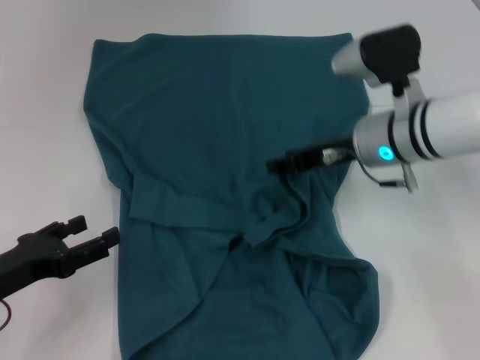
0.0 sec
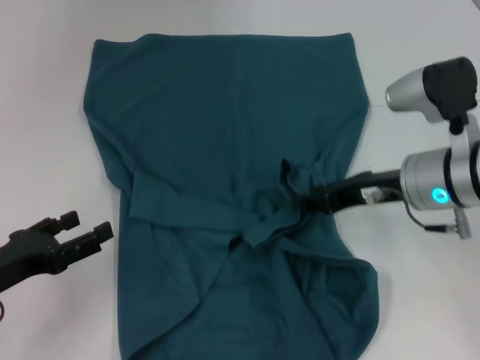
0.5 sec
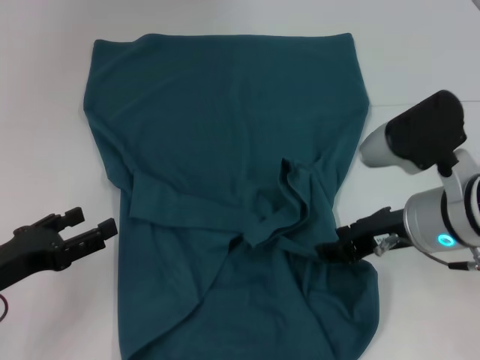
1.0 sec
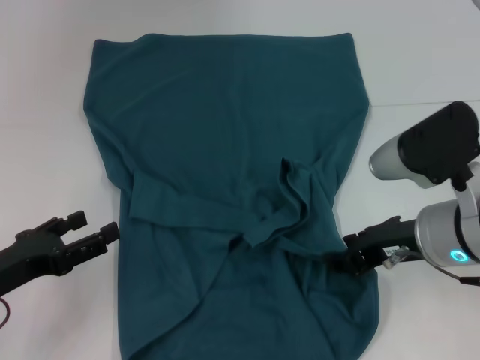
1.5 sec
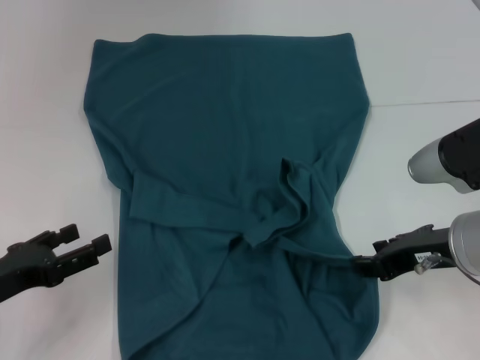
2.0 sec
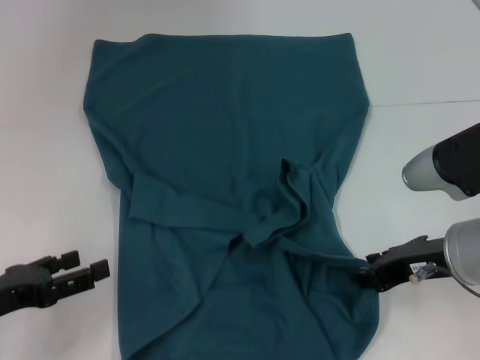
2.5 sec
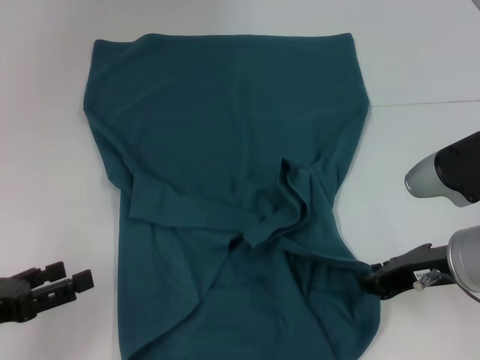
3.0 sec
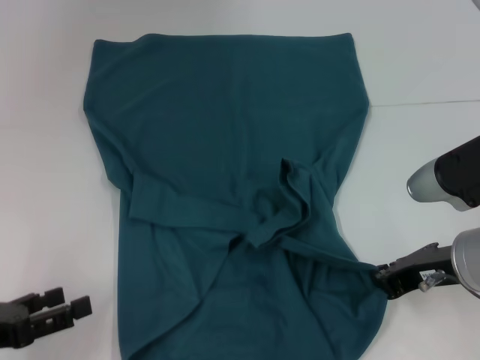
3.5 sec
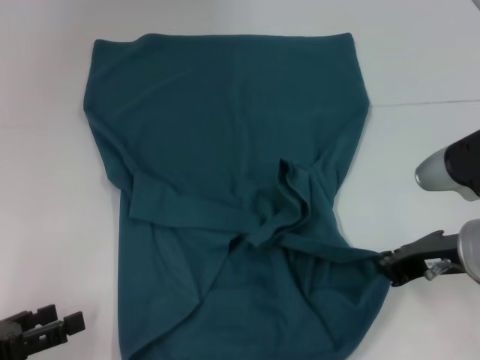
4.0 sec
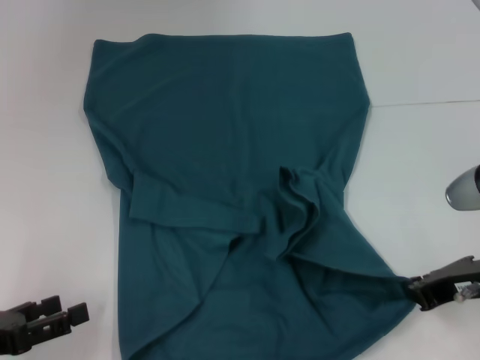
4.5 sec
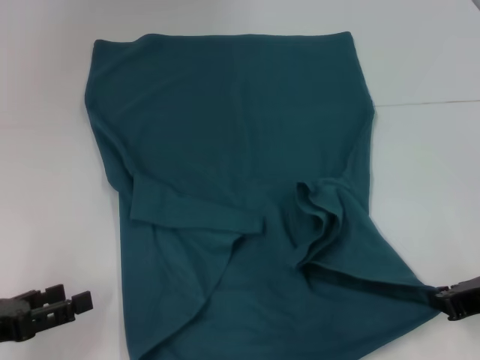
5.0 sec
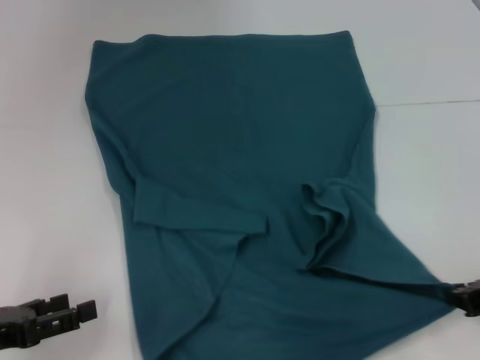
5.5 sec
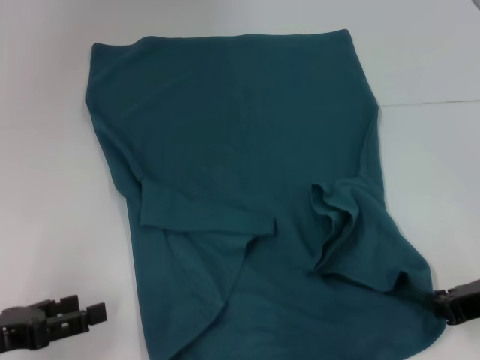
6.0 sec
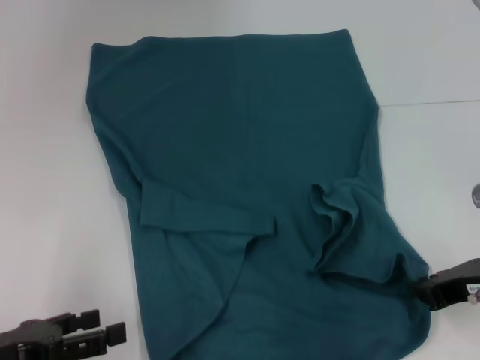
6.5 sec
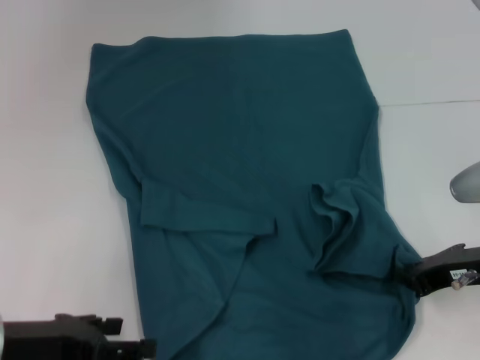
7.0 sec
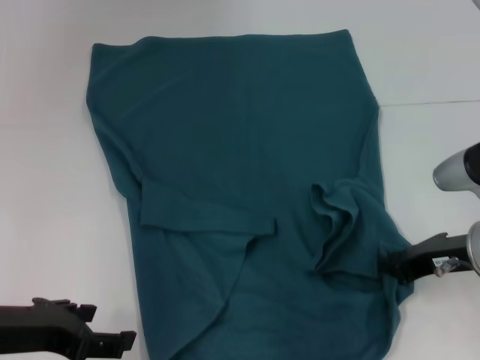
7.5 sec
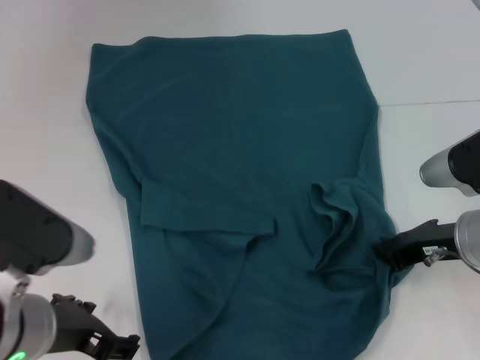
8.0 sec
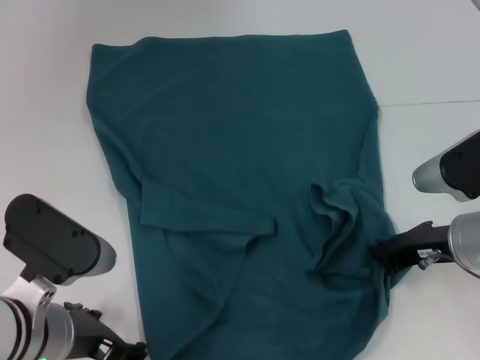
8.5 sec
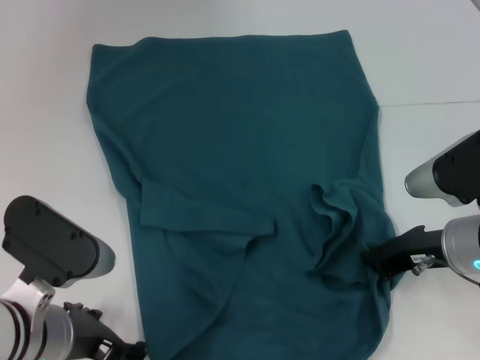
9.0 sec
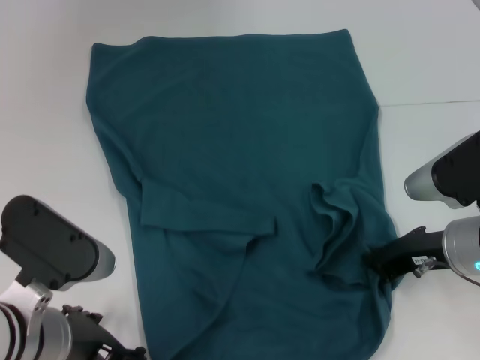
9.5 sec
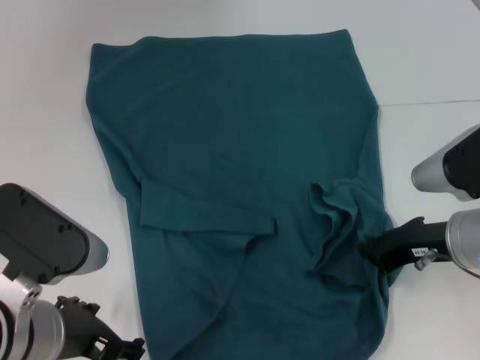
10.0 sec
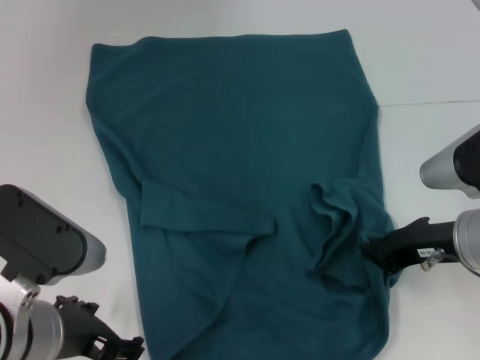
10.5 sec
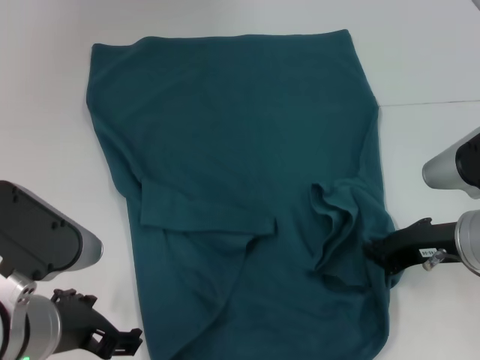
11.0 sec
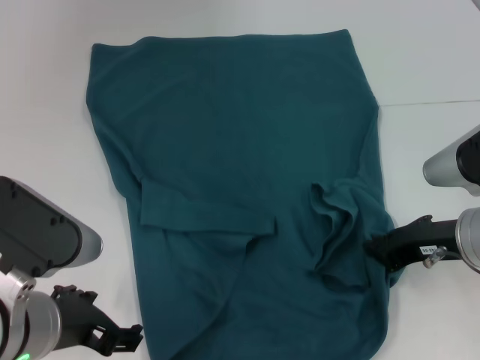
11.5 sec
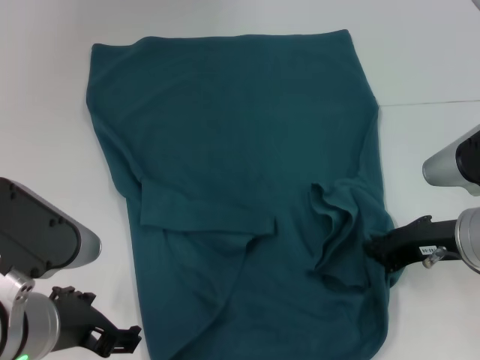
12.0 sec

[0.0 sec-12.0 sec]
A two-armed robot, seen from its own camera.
Step, 0.5 sec to 4.0 sec: Grab the bottom right corner with your right hand.
0.0 sec to 2.0 sec: The right gripper is displaced backward by some 15 cm.
2.0 sec to 4.0 sec: The right gripper closes its fingers, while the left gripper goes approximately 5 cm backward.
4.0 sec to 6.0 sec: The right gripper heads to the right, covering roughly 5 cm.
6.0 sec to 8.0 sec: The right gripper is displaced forward by roughly 5 cm. Meanwhile the left gripper moves to the right and upward, about 15 cm.
8.0 sec to 10.0 sec: There are only small adjustments of the grippers.
10.0 sec to 12.0 sec: Neither gripper changes place.

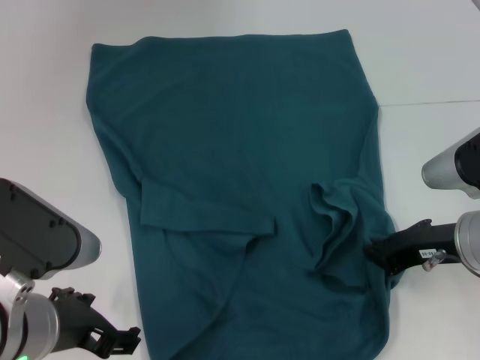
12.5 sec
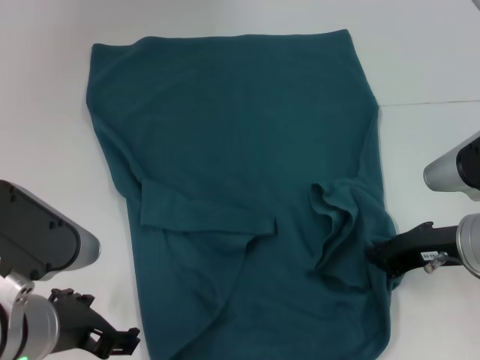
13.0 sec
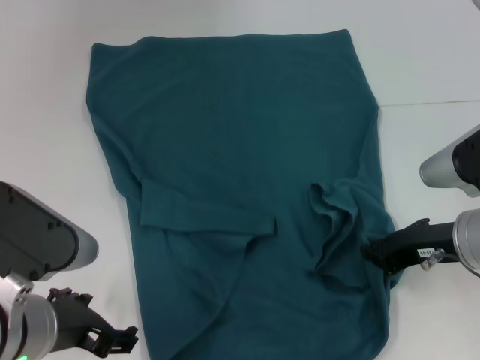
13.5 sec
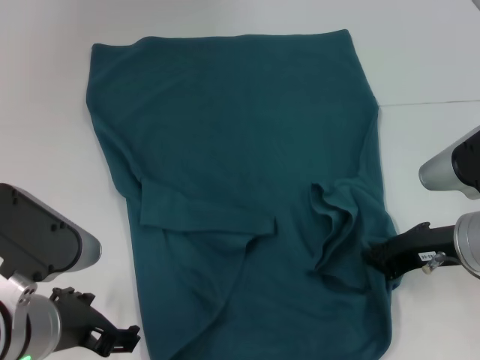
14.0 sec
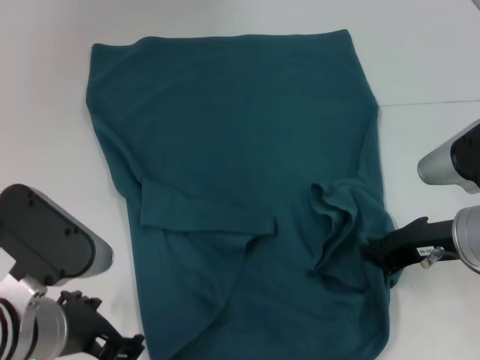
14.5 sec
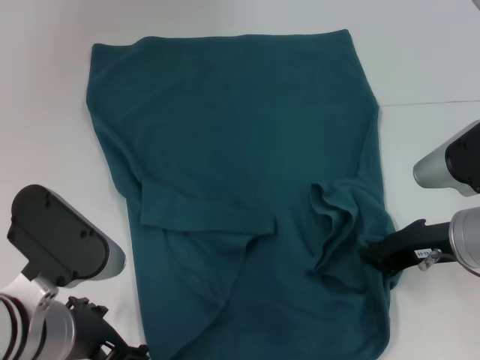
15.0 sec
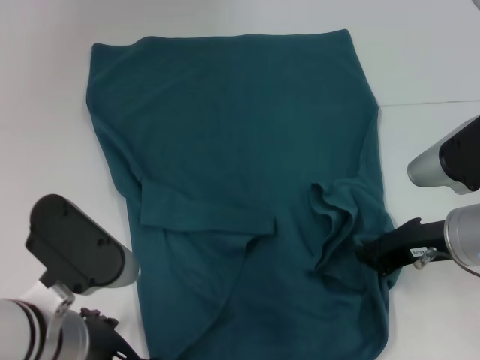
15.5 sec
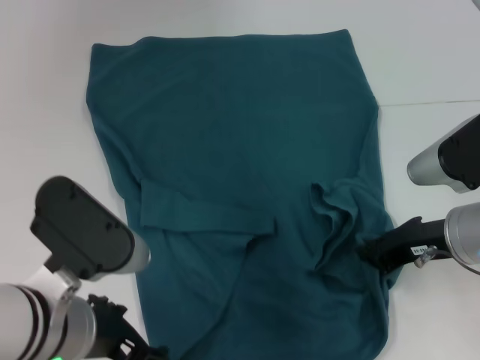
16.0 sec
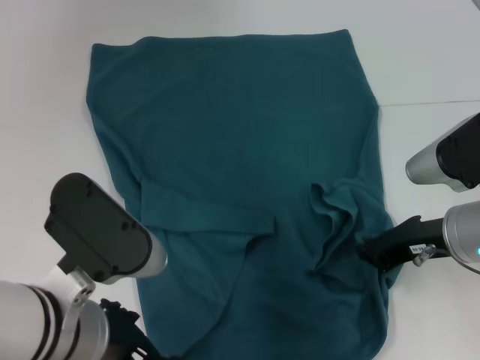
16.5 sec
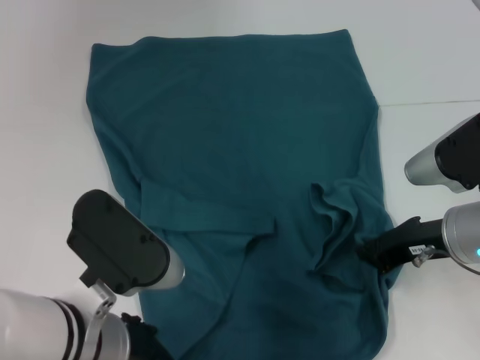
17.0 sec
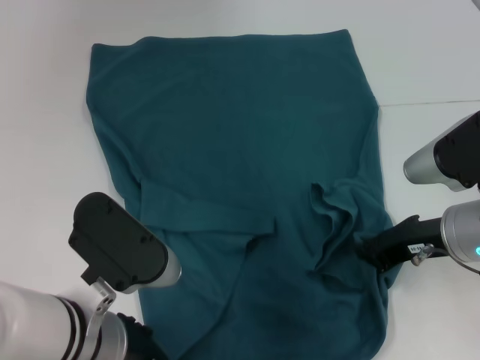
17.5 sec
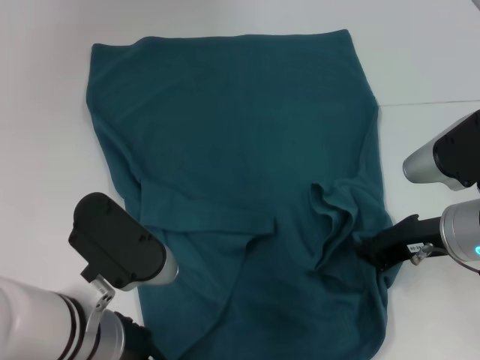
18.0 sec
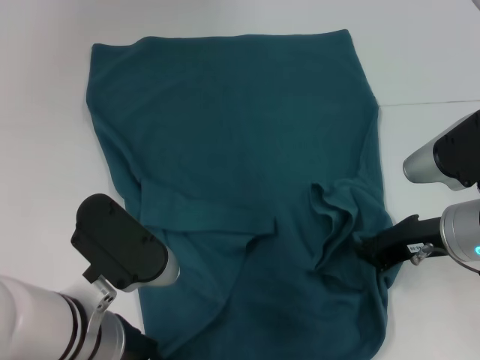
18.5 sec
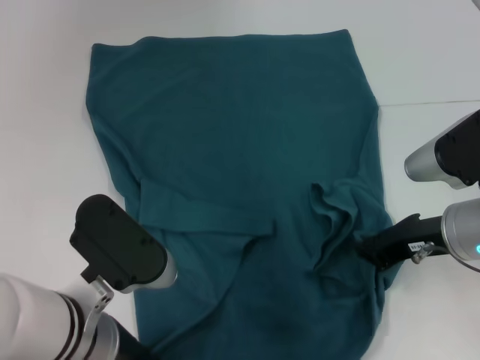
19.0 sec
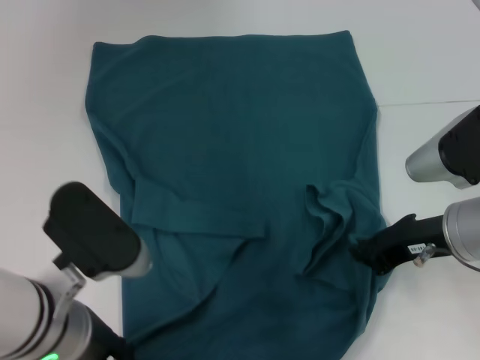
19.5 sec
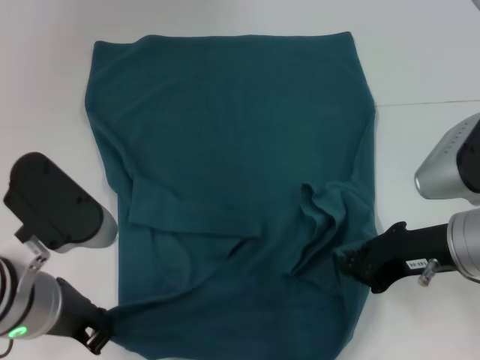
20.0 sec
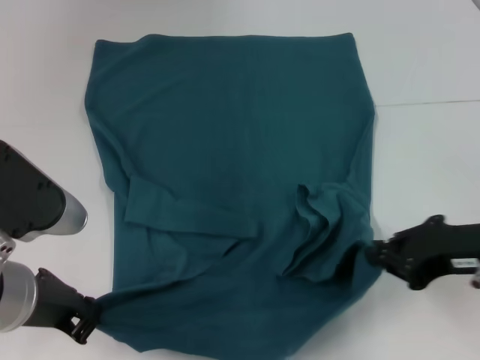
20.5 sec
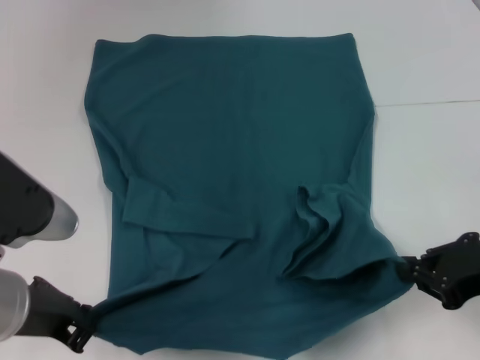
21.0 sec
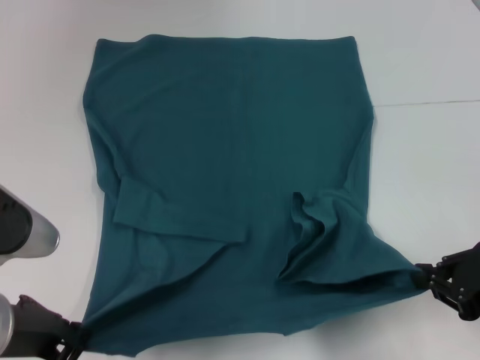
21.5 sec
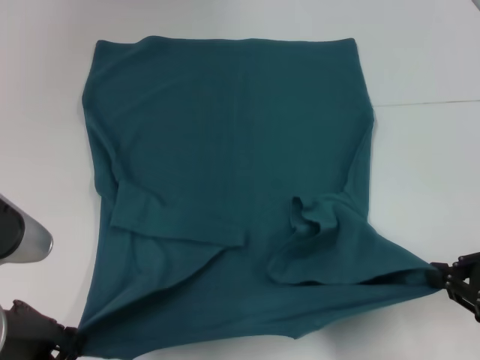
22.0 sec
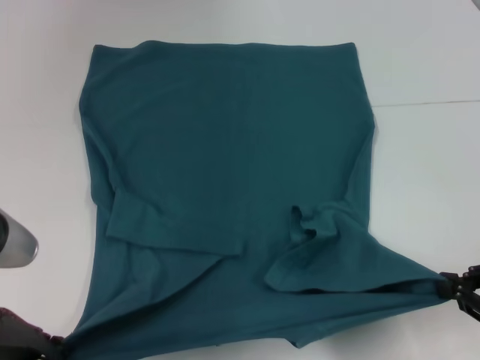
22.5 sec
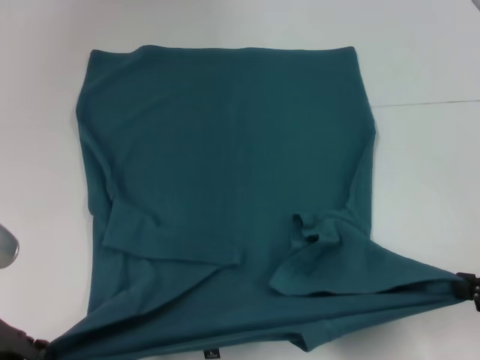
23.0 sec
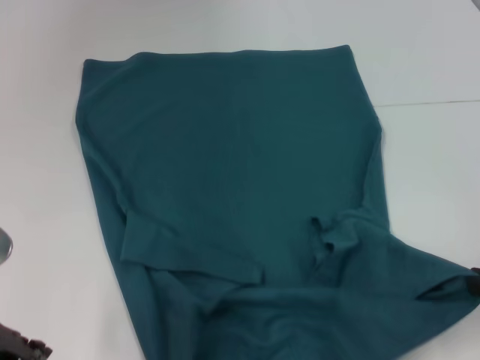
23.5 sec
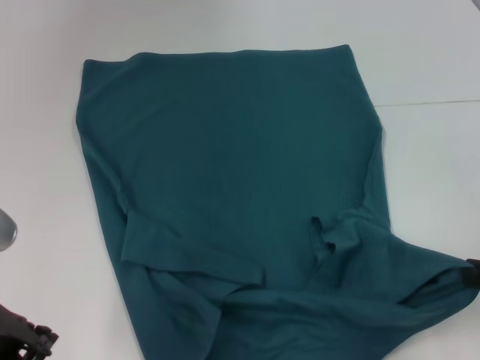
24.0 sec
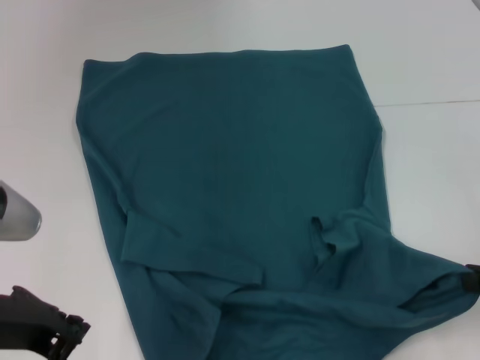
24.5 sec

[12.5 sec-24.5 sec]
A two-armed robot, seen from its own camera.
12.5 sec to 14.5 sec: Both grippers stay about where they are.
14.5 sec to 16.5 sec: The grippers move only a little.
16.5 sec to 18.5 sec: The left gripper closes its fingers.
18.5 sec to 20.5 sec: The left gripper is displaced to the left by some 5 cm, and closes up; the right gripper moves backward, roughly 5 cm.
20.5 sec to 22.5 sec: The right gripper is displaced to the right and backward by roughly 10 cm.
22.5 sec to 24.5 sec: The grippers move only a little.

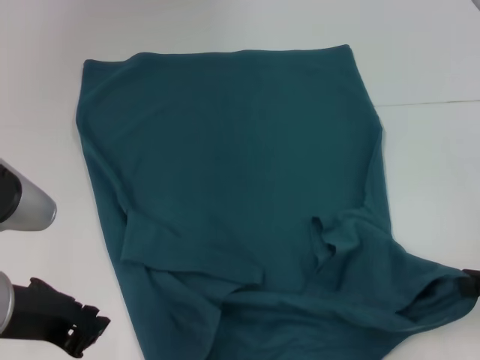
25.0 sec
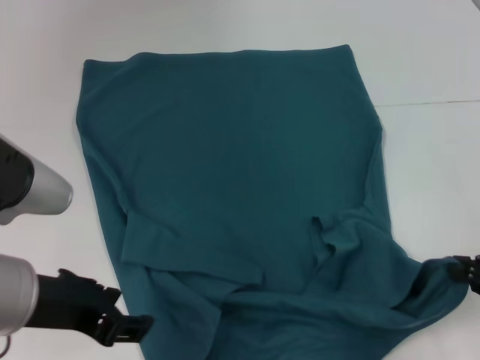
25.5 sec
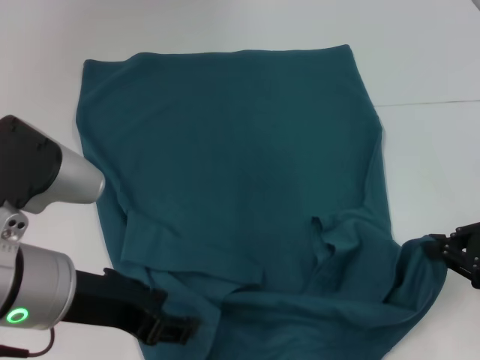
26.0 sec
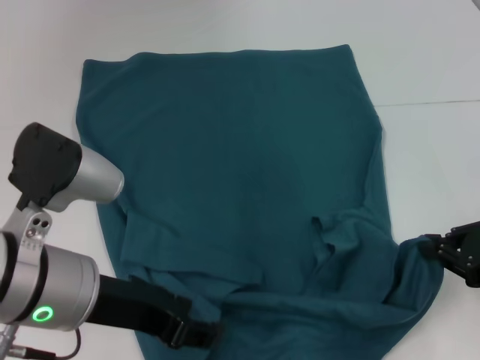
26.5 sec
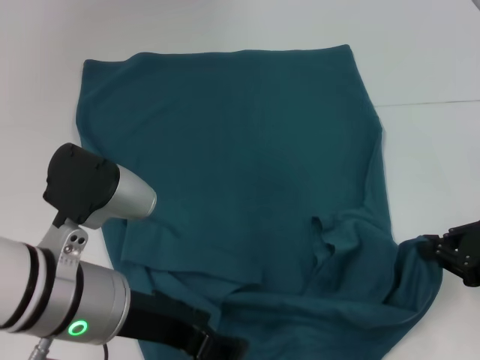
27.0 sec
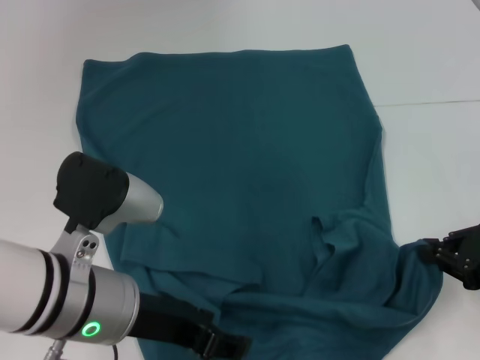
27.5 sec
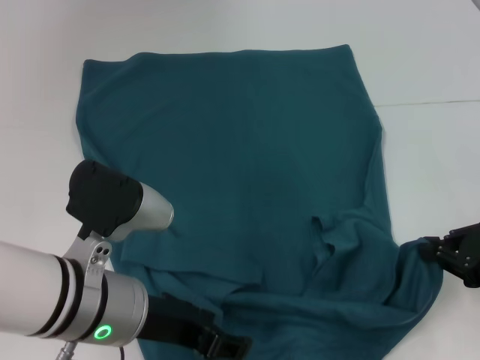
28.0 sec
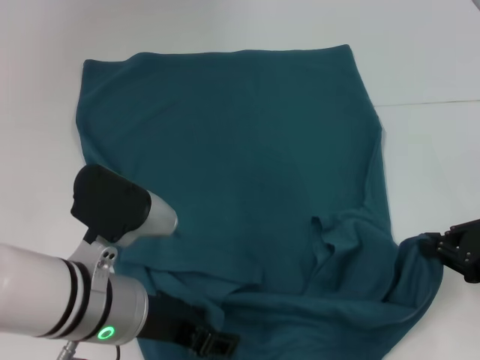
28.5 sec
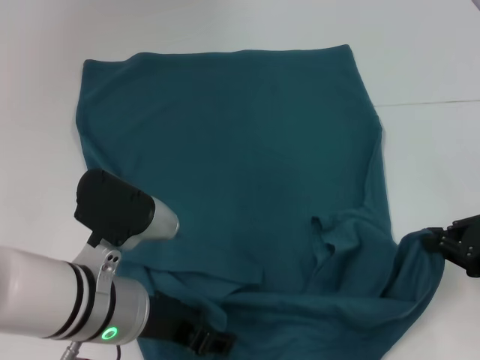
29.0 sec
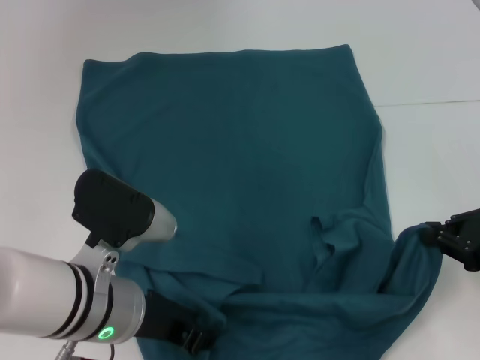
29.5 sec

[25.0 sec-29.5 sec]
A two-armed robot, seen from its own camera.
25.0 sec to 27.0 sec: The right gripper moves forward, some 5 cm; the left gripper heads to the right, covering roughly 5 cm, and opens its fingers.
27.0 sec to 29.5 sec: The left gripper changes place by approximately 5 cm.
